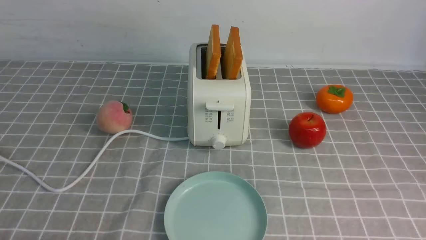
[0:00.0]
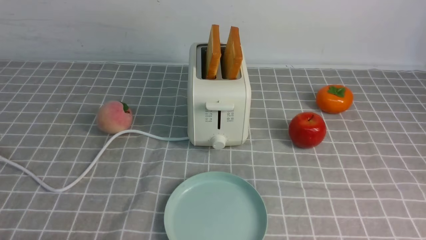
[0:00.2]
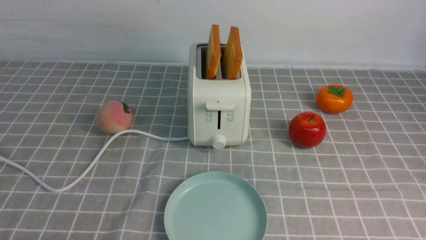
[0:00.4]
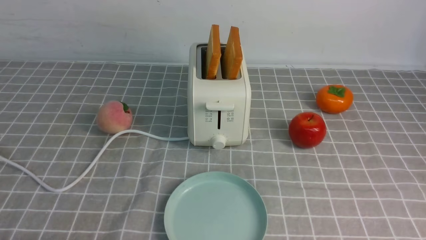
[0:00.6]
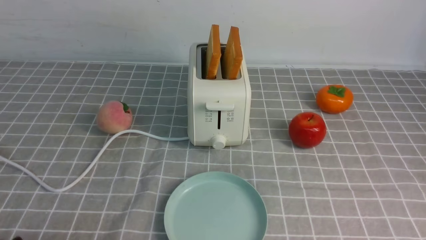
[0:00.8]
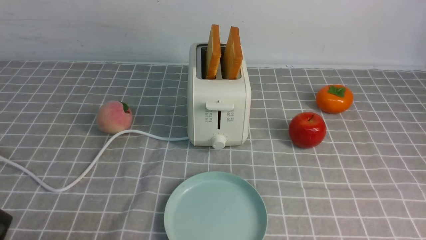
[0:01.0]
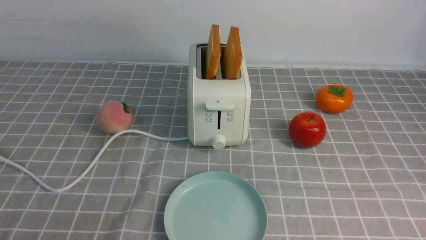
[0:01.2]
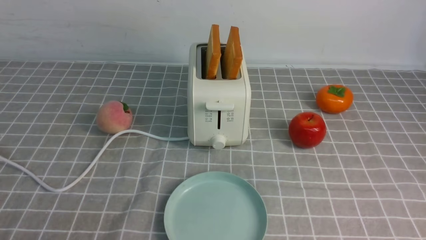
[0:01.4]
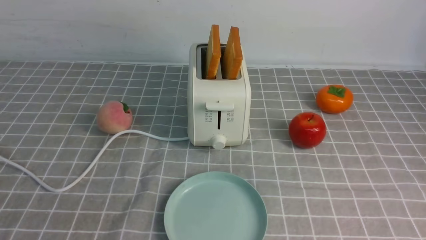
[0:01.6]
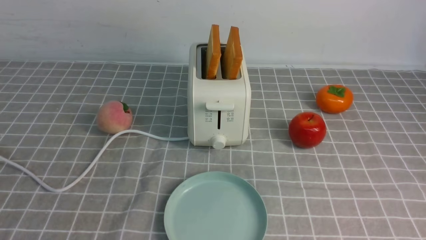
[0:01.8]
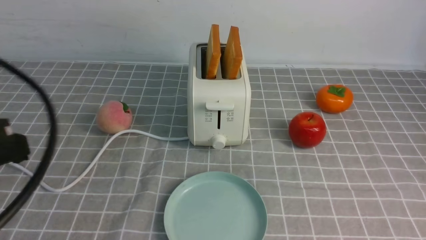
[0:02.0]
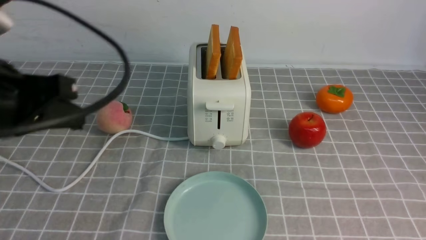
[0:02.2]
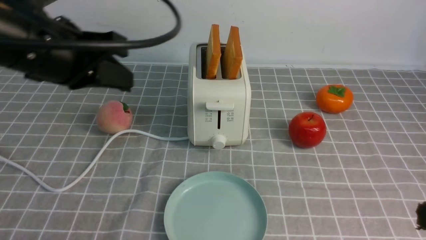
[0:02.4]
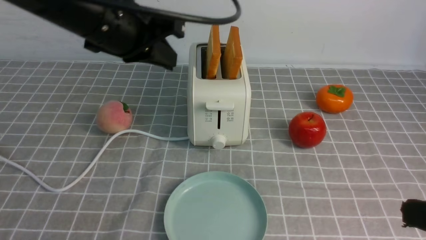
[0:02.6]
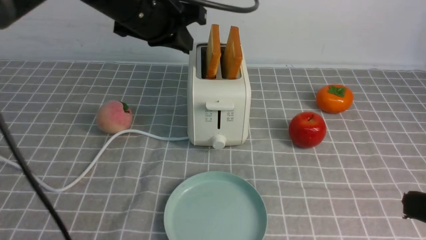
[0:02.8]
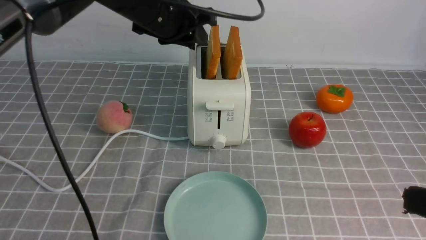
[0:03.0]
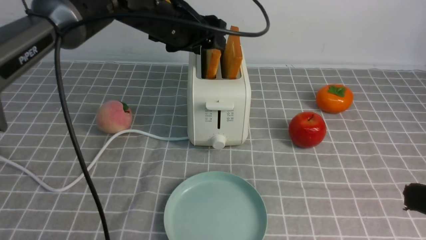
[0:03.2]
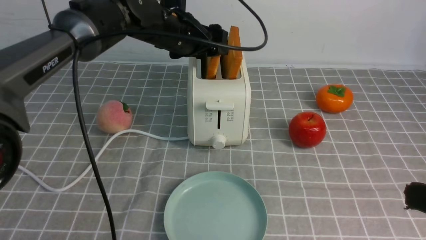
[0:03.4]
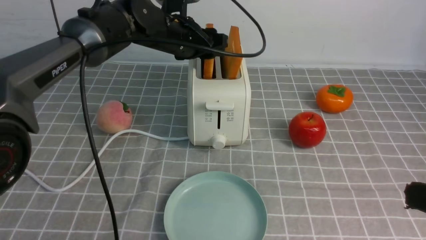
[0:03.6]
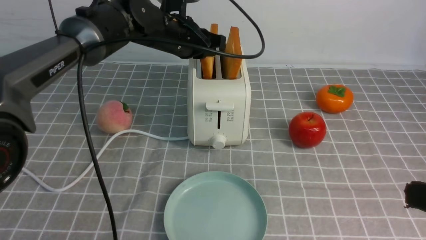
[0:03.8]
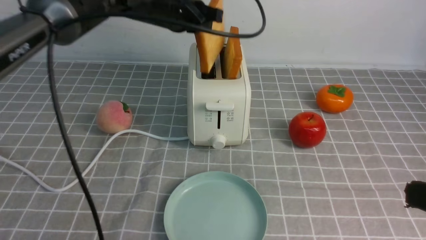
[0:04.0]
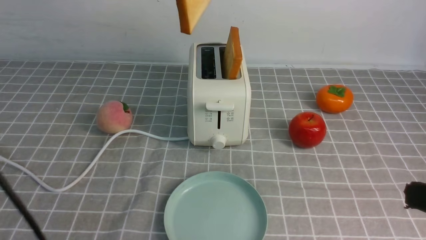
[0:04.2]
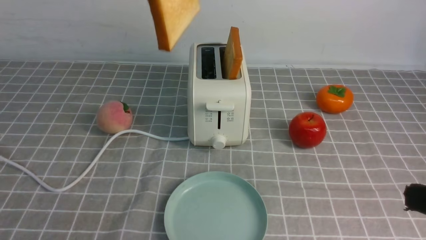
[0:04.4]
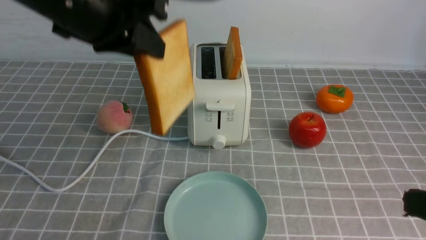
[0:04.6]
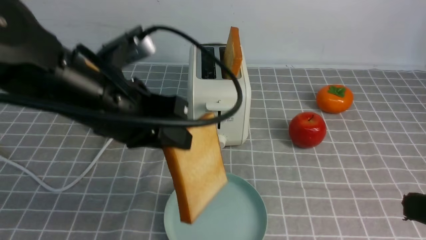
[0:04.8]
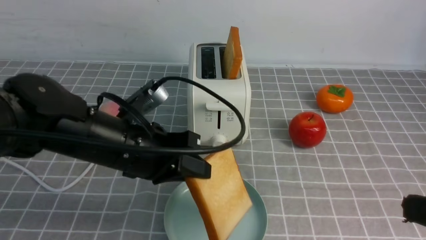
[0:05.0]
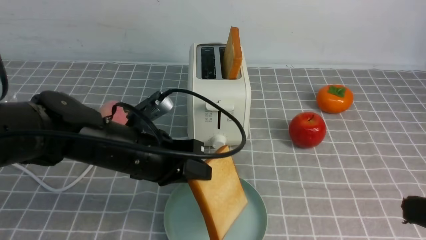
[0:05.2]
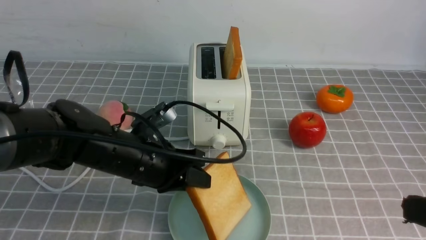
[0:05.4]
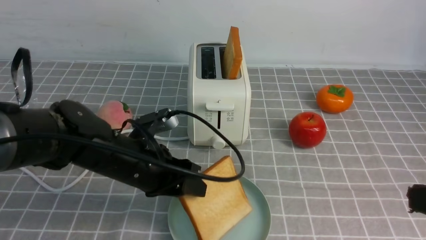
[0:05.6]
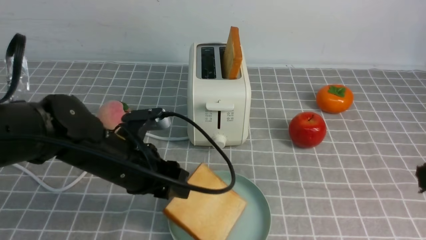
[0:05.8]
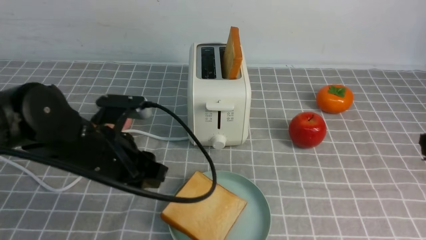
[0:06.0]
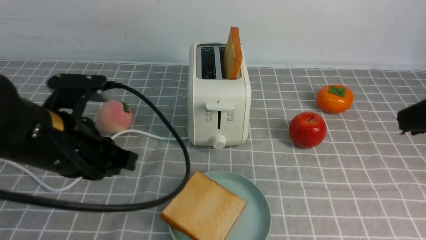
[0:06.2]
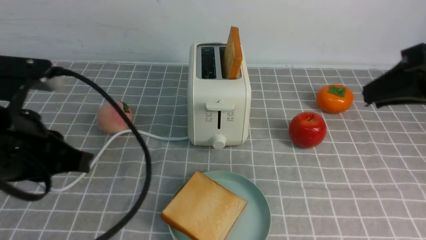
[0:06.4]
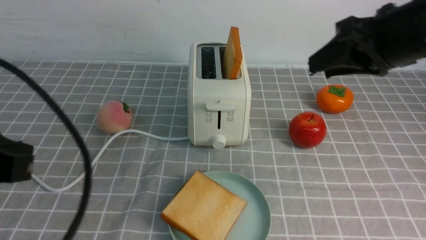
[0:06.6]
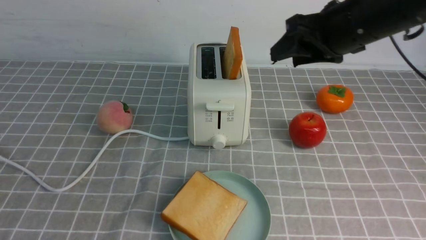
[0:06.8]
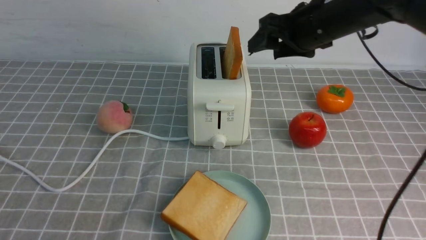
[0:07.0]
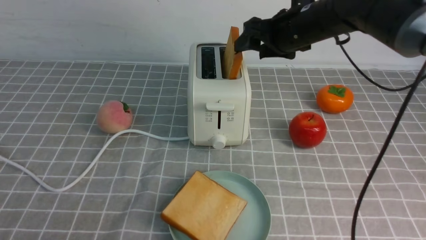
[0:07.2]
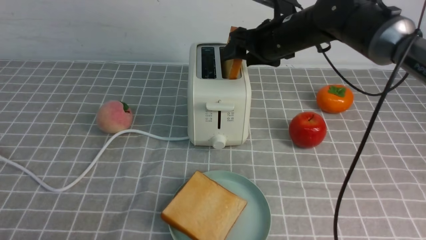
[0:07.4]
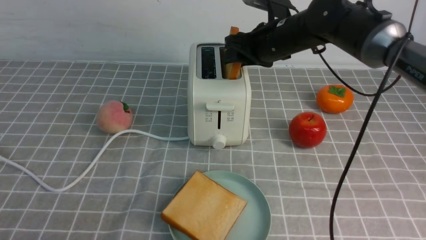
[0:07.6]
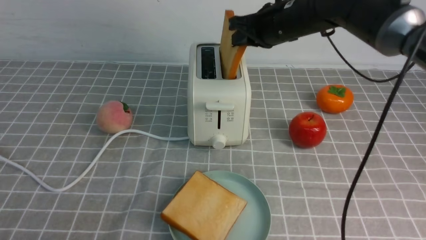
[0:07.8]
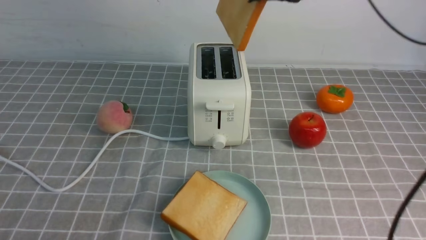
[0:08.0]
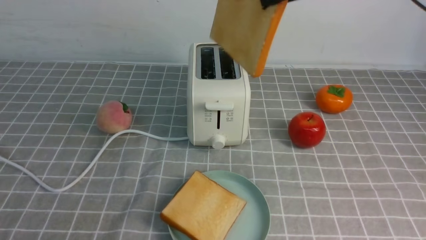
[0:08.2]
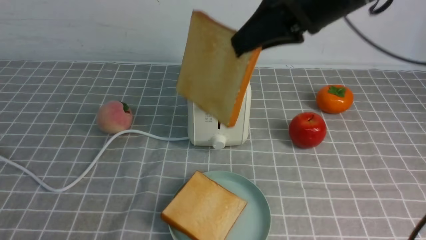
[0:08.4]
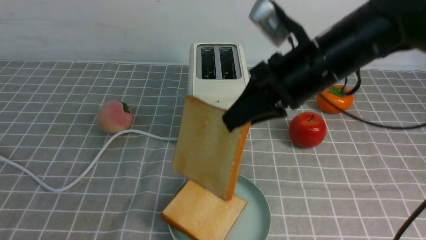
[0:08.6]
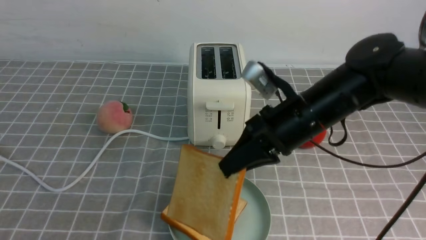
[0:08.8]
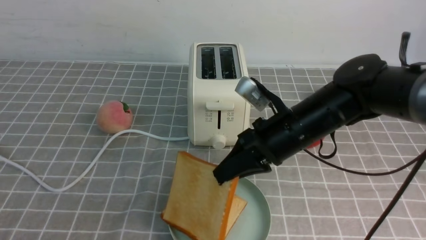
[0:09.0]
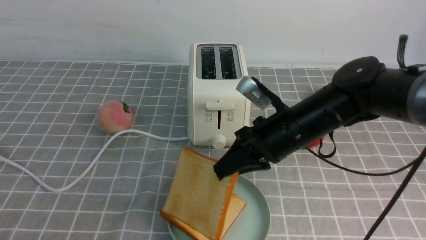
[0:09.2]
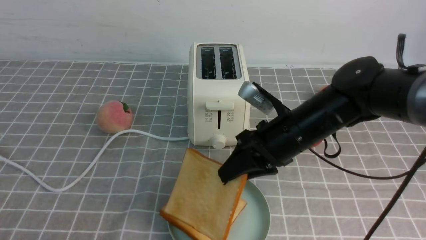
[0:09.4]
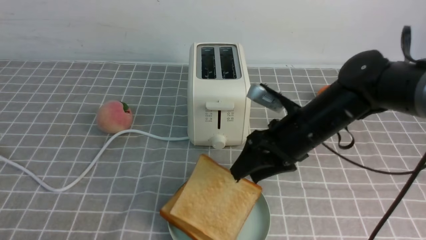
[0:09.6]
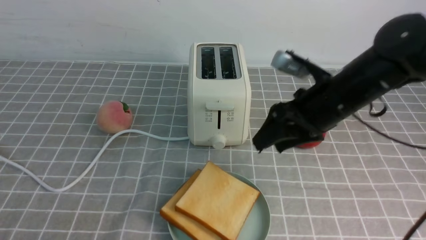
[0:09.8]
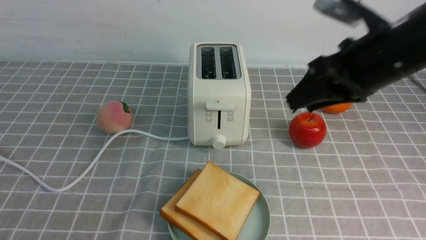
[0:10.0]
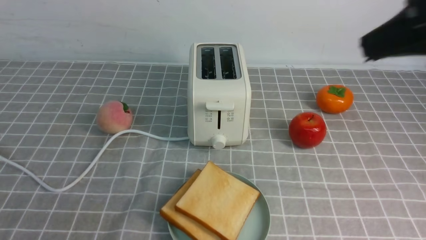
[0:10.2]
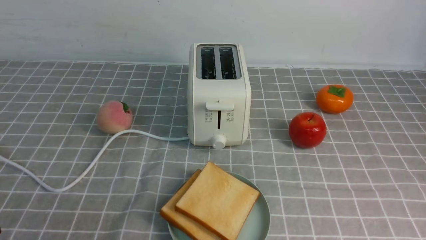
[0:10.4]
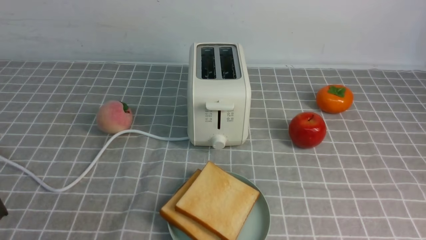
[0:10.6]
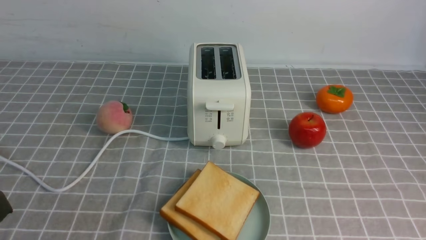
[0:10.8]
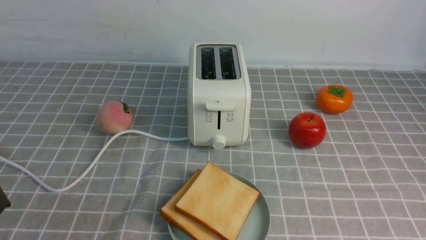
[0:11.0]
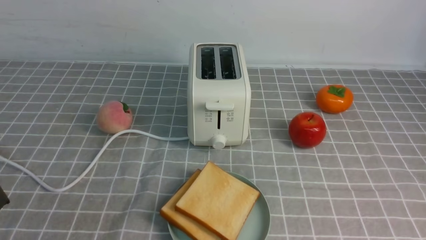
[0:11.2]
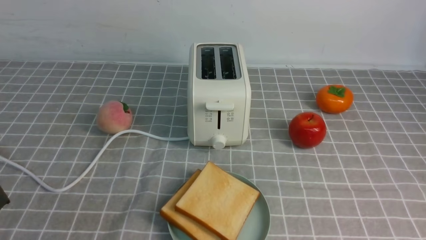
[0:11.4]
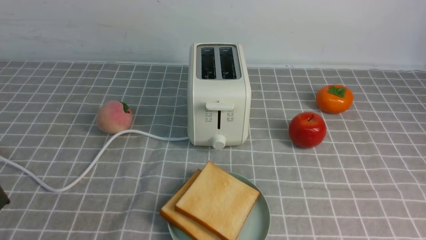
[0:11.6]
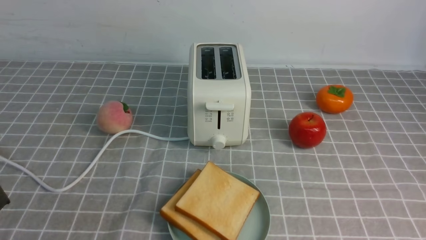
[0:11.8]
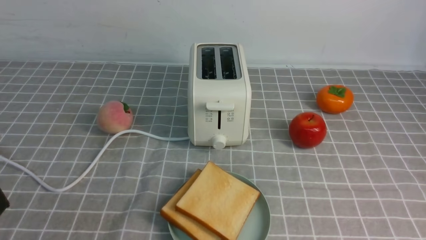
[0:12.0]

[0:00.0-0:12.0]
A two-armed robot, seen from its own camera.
Task of the whole recording: take toasted bread from bread machine on grey coffee table place on plate.
Step, 0:00.0 to 0:04.0: use the left arm to take out a slice of bread.
Step, 0:04.4 to 0:06.0: use the left arm to put a slice of bread into the empty plate.
Step, 0:06.2 to 0:08.0: use the right arm to take out a slice of bread.
Step, 0:08.2 to 0:09.8: use the right arm to put a slice of bread into the plate.
0:01.6 to 0:03.0: The right gripper goes some 15 cm upward, and closes. Meanwhile the left gripper travels forward and to the right by approximately 40 cm, and opens.
0:03.0 to 0:04.4: The left gripper shifts roughly 10 cm upward and backward, and opens, then closes once more.
0:04.4 to 0:06.0: The left gripper heads downward, covering roughly 25 cm, and opens its fingers. Meanwhile the right gripper goes approximately 5 cm upward.
0:06.0 to 0:07.6: The right gripper goes approximately 35 cm forward and to the left, and opens, while the left gripper shifts roughly 30 cm backward and to the left, and closes its fingers.
0:07.6 to 0:09.0: The right gripper travels backward by roughly 15 cm, goes upward and returns, some 15 cm each way, and closes.
0:09.0 to 0:10.4: The right gripper heads upward, backward and to the right, covering approximately 30 cm, and opens, then closes once more.

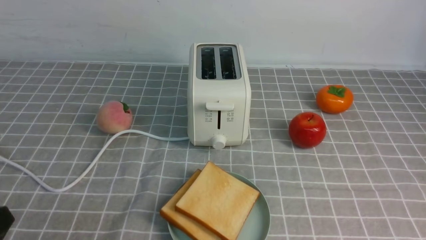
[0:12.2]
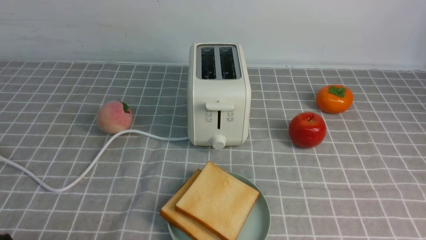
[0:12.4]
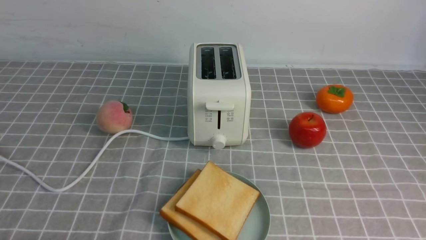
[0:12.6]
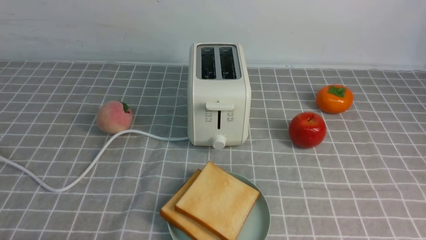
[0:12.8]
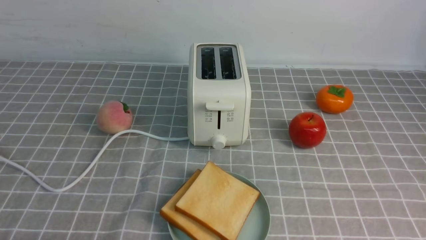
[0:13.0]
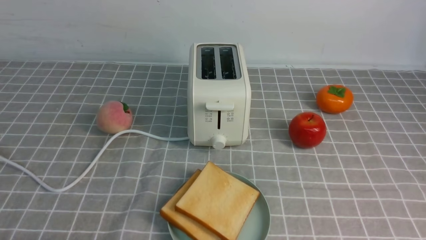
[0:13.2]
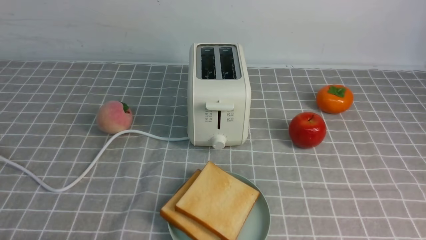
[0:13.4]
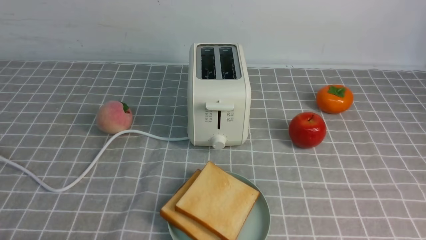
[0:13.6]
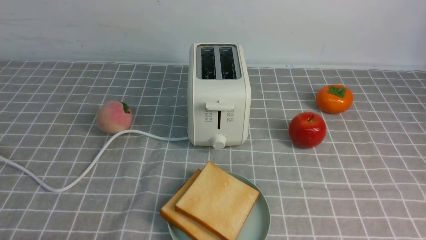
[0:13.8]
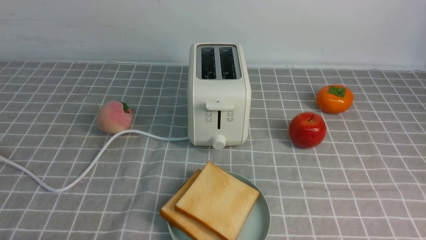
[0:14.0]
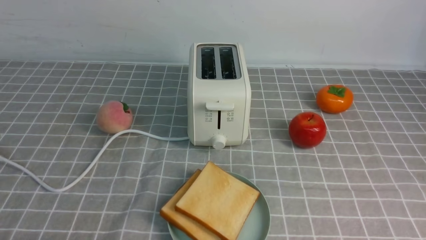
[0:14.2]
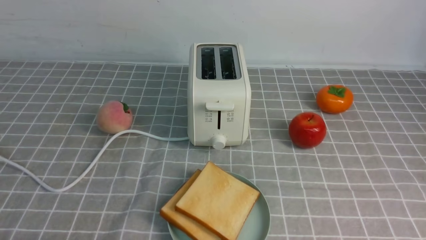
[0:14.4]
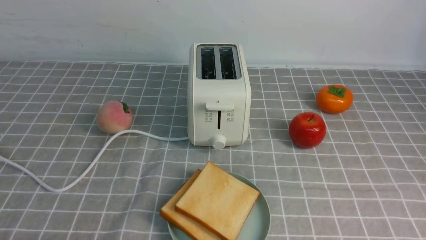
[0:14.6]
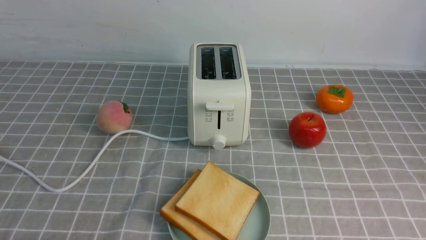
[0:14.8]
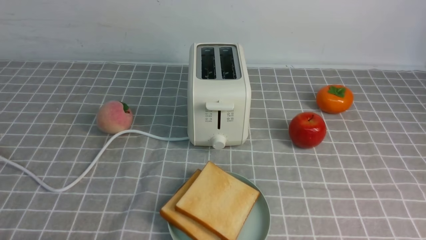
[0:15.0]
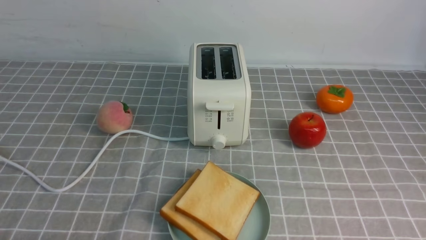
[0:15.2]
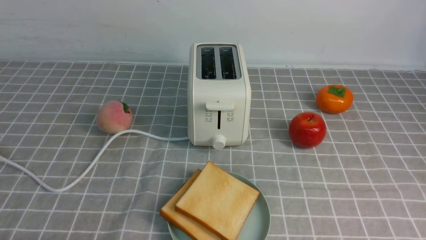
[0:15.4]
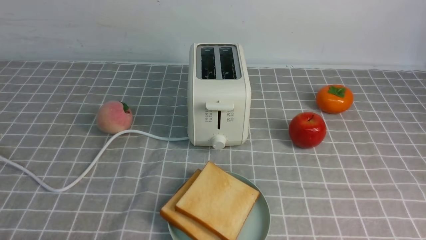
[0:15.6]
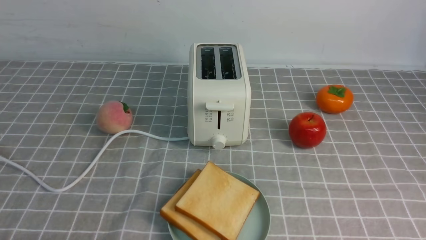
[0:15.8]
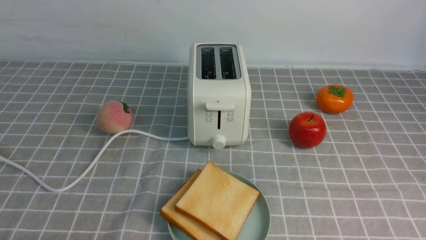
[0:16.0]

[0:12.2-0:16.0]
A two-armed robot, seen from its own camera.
Task of the whole recording: take toasted bread from bread machine on grey coffee table place on plate.
0:14.8 to 0:16.0: Both grippers stay about where they are.
